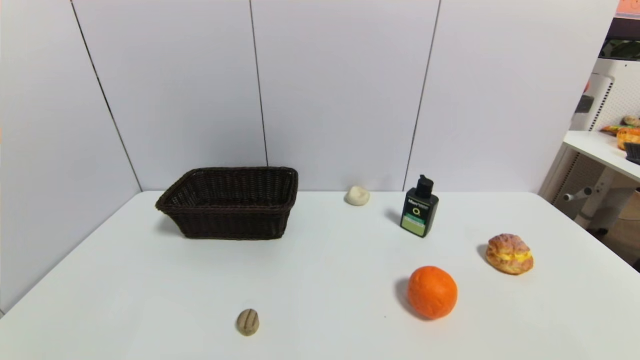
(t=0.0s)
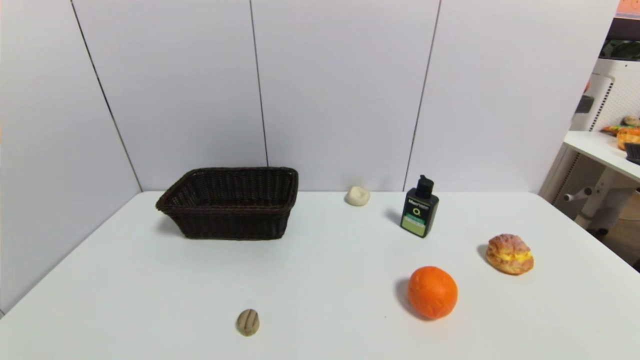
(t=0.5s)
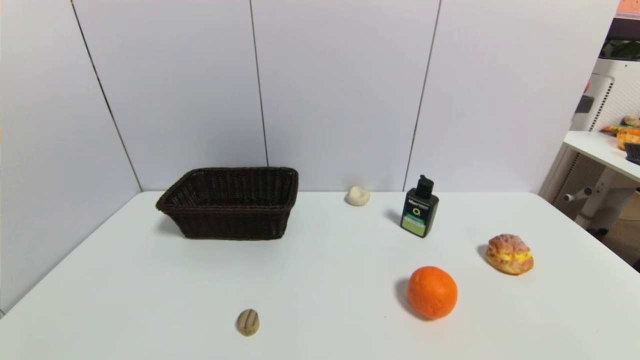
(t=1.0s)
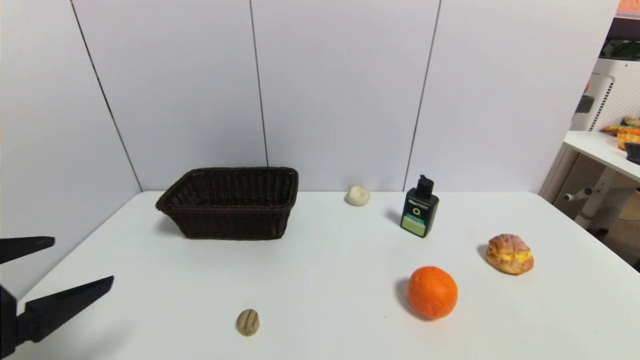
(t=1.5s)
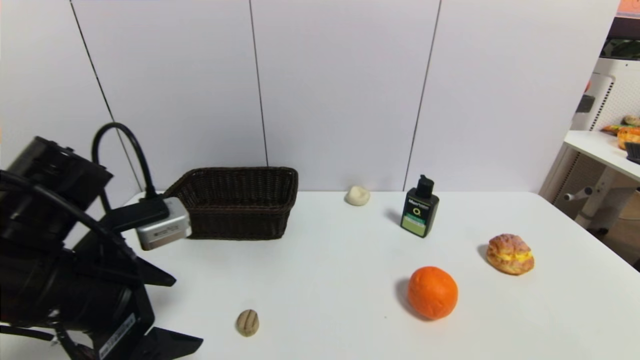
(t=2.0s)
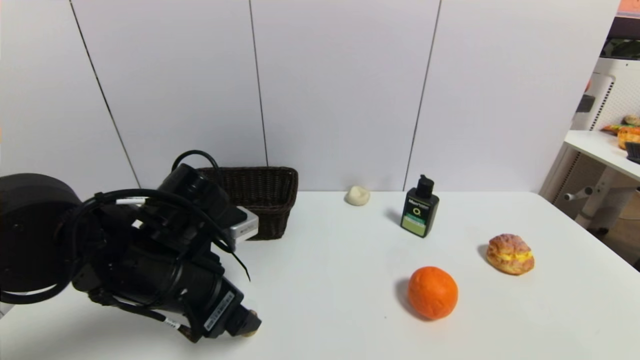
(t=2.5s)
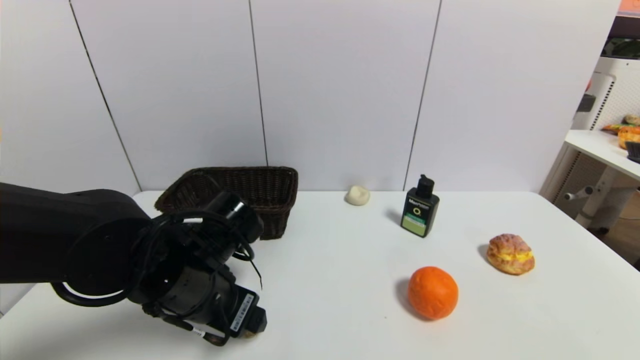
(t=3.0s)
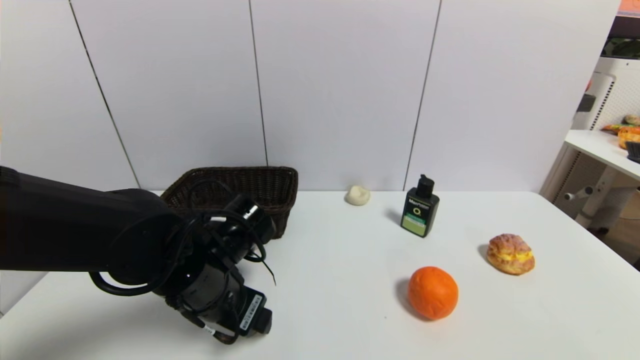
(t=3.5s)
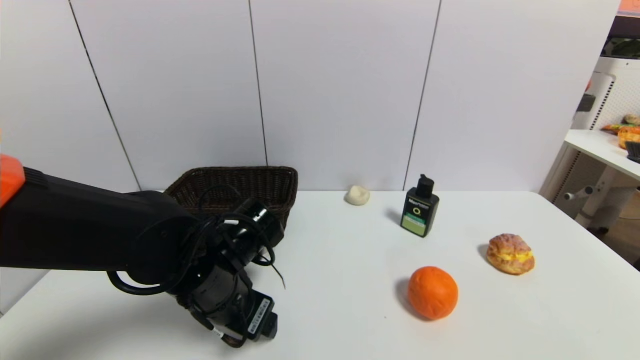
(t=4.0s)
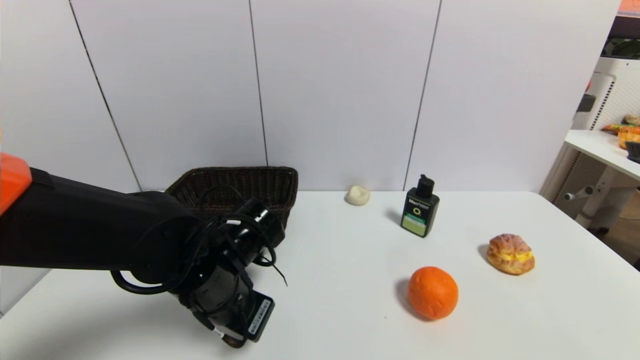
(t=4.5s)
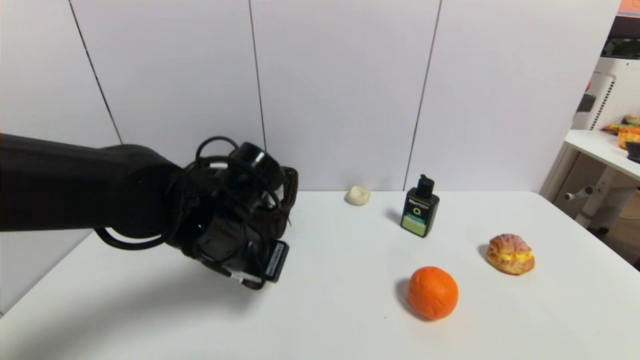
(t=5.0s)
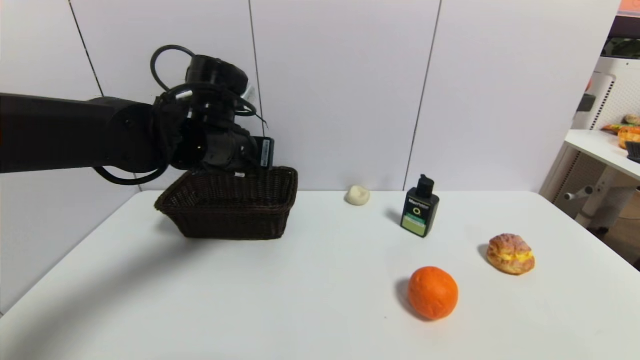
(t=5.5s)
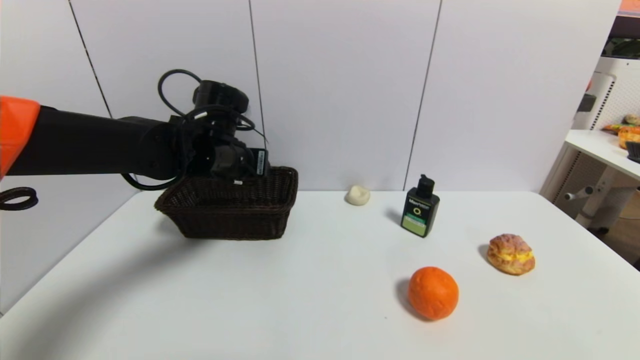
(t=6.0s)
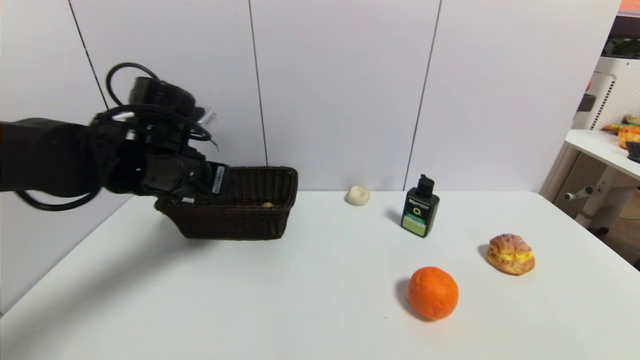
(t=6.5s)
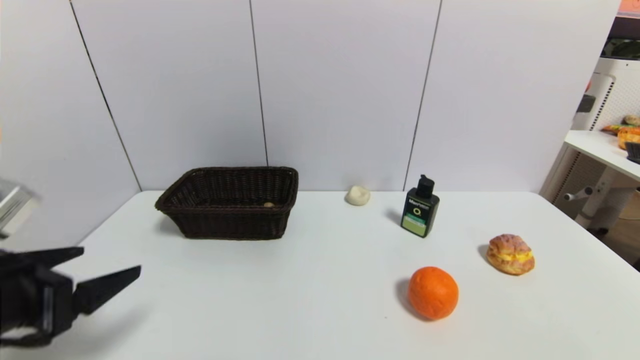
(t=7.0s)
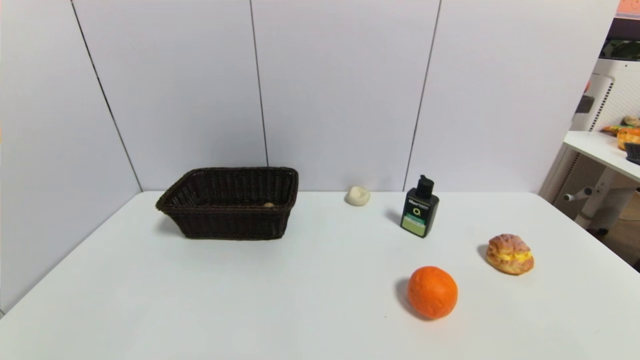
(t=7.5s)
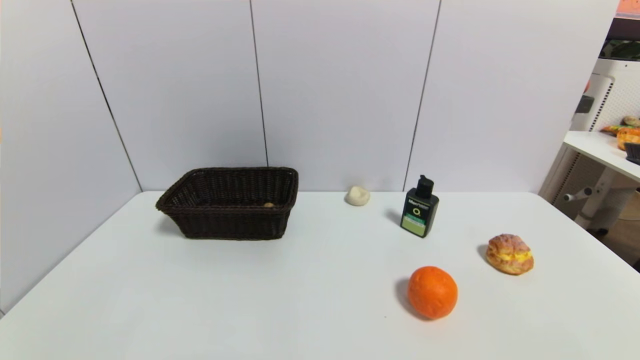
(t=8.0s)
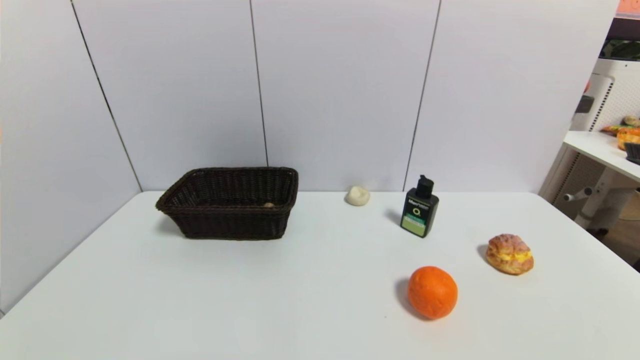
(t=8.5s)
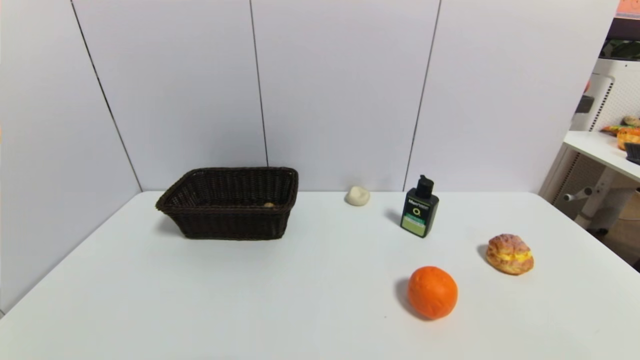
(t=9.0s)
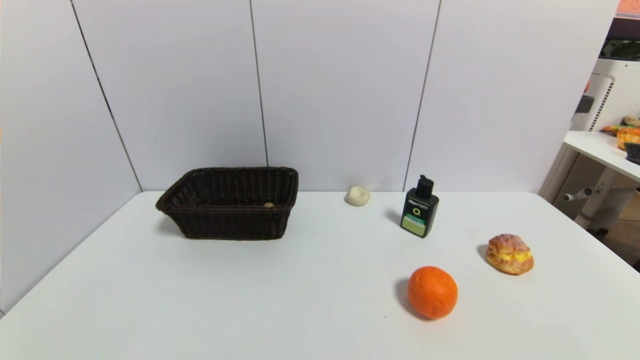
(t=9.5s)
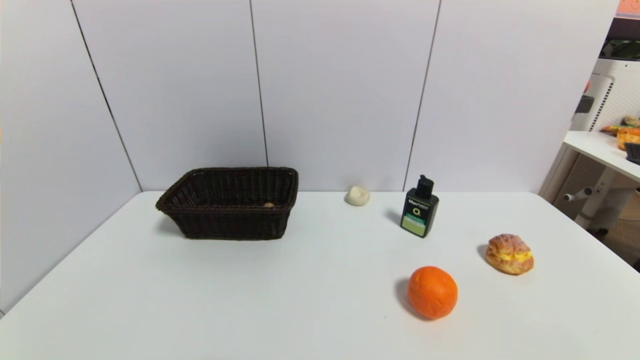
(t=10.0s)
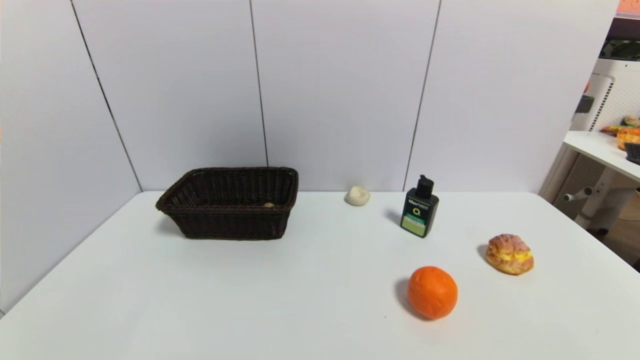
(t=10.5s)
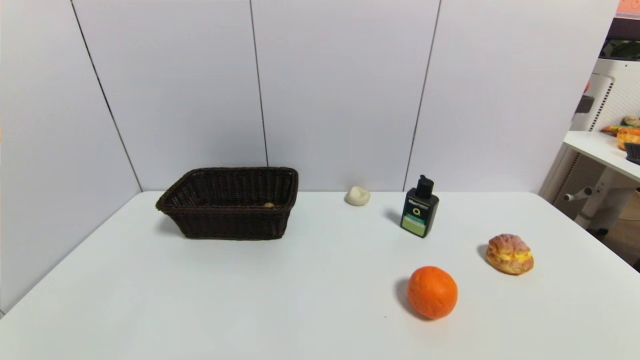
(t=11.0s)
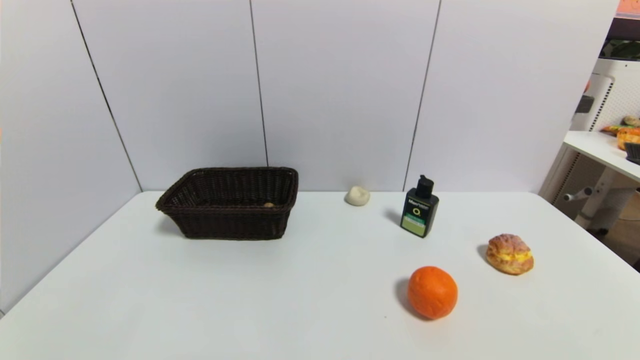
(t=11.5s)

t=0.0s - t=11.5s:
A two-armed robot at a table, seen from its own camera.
Task of the whole recording: use a gripper to pick the target object and place on the brown basket.
Step, t=0.0s - t=4.5s: Grasp the round wooden block with the left gripper.
Step, t=5.0s - t=6.5s: Place the round wooden block into the basket with the left gripper.
t=0.0s - t=2.0s: The left gripper heads forward, upward and to the right, covering about 25 cm.
t=2.0s - t=4.0s: The left gripper goes roughly 15 cm to the right, downward and forward.
t=4.0s - t=6.0s: The left gripper heads forward and upward, covering roughly 15 cm, and closes, then opens again.
t=6.0s - t=7.5s: The left gripper goes some 40 cm backward, and opens.
t=9.5s - t=11.5s: Both grippers stay put.
